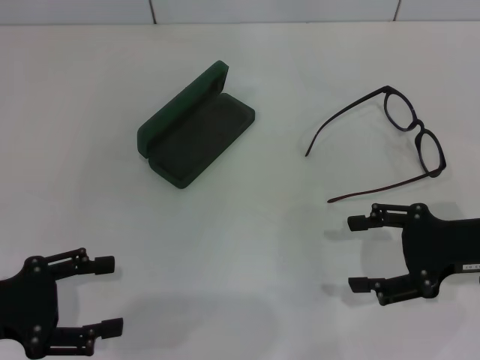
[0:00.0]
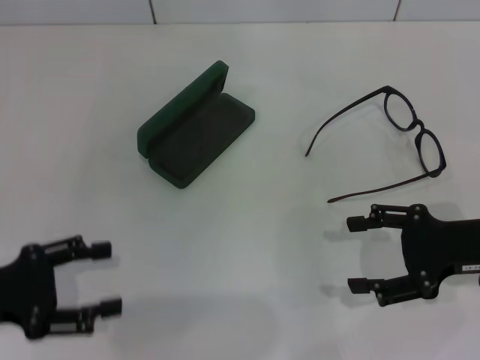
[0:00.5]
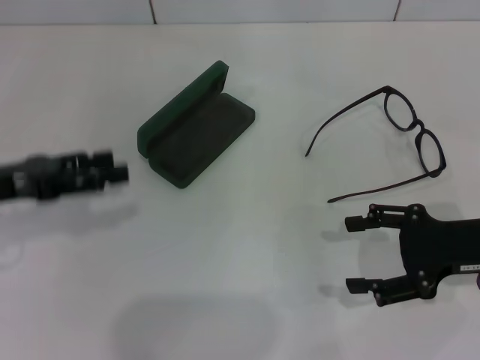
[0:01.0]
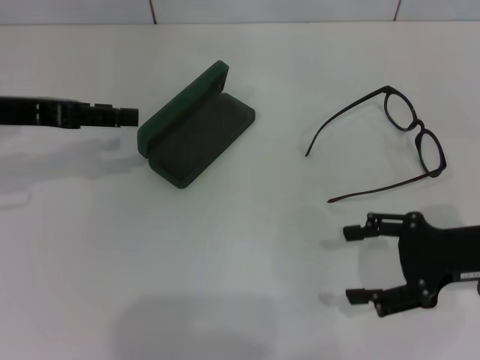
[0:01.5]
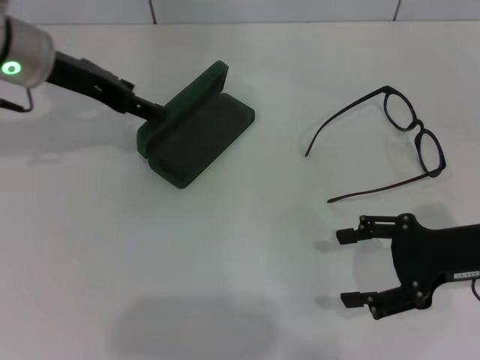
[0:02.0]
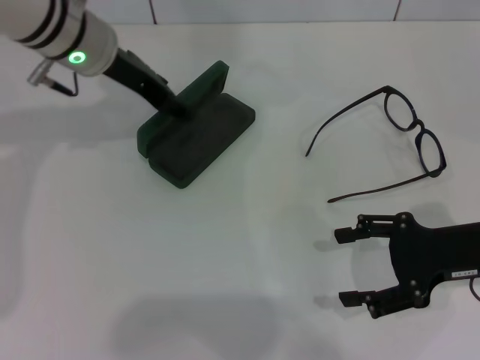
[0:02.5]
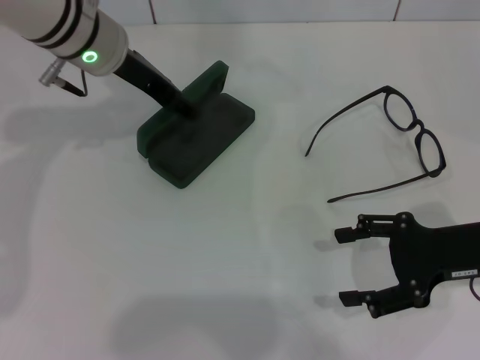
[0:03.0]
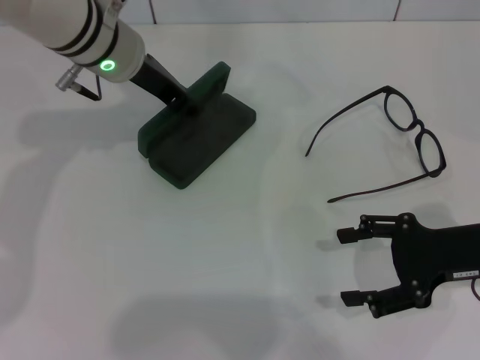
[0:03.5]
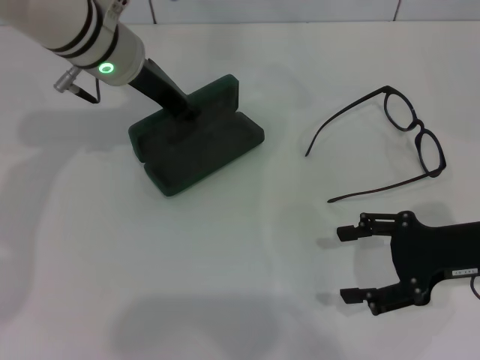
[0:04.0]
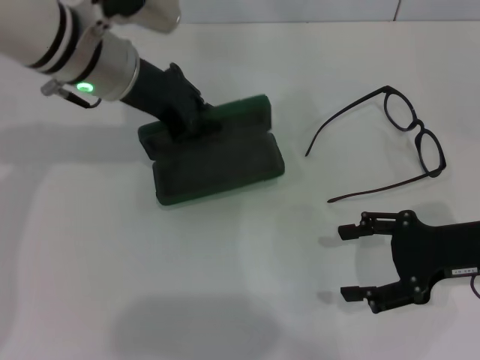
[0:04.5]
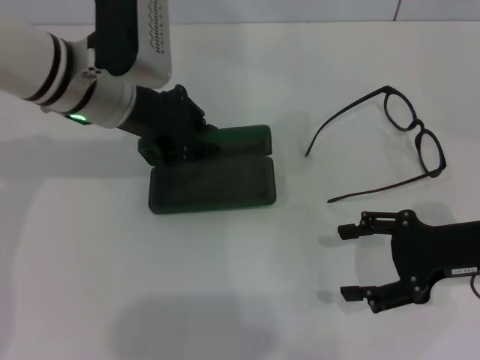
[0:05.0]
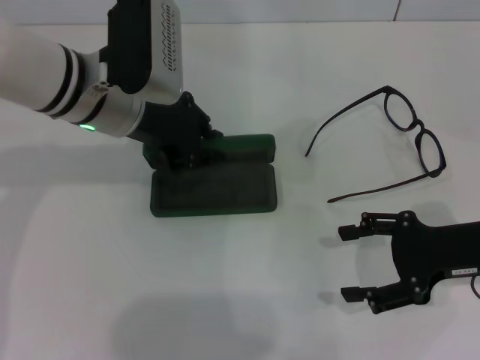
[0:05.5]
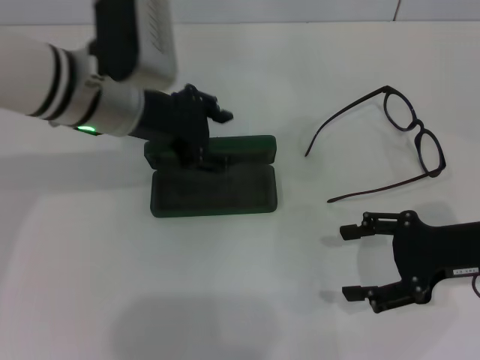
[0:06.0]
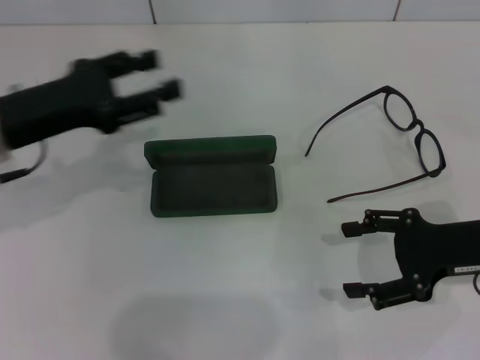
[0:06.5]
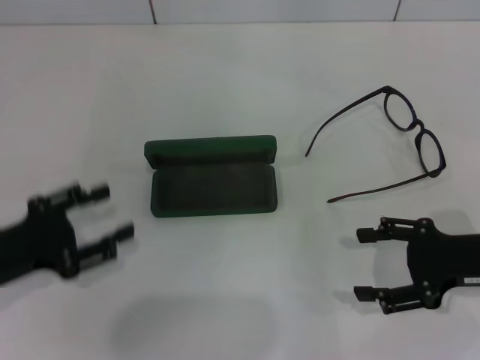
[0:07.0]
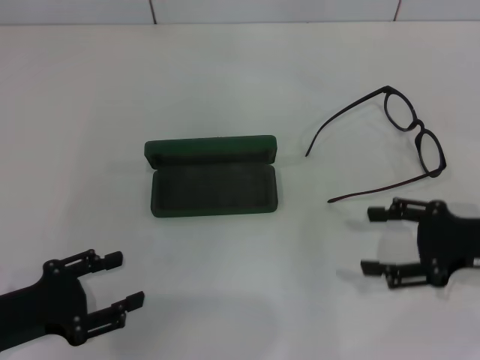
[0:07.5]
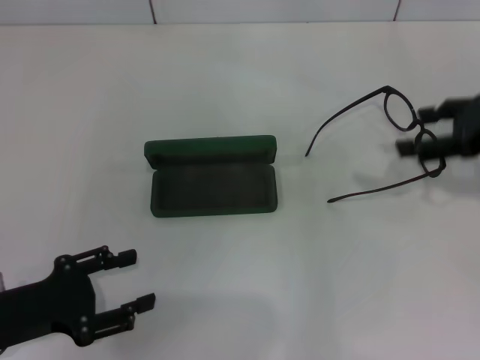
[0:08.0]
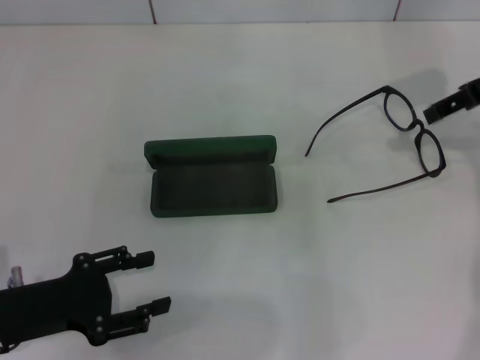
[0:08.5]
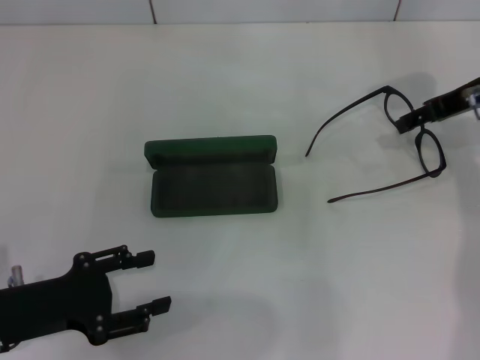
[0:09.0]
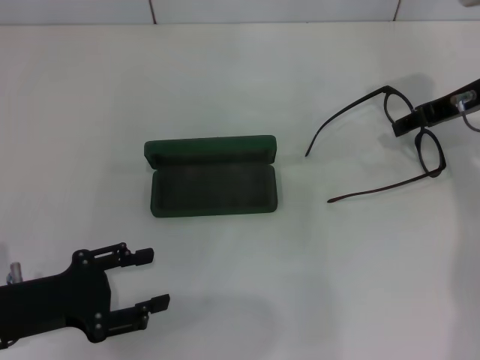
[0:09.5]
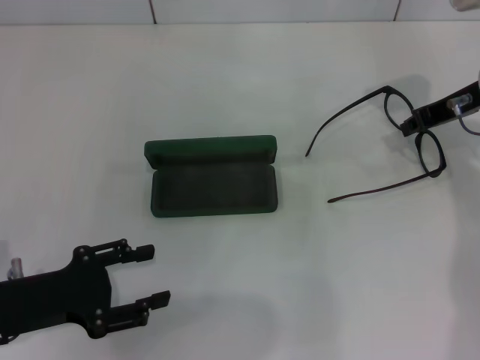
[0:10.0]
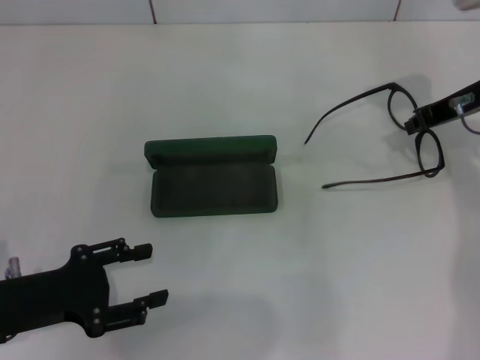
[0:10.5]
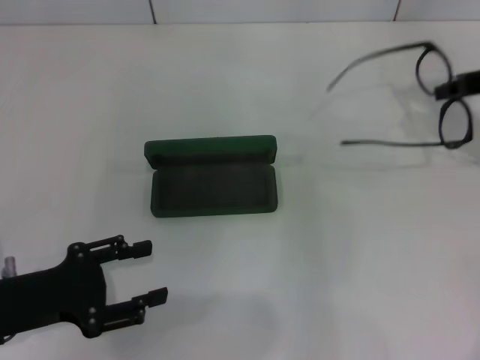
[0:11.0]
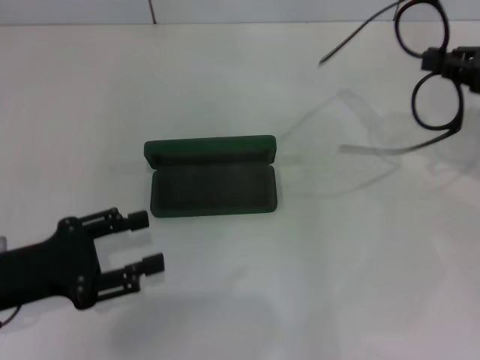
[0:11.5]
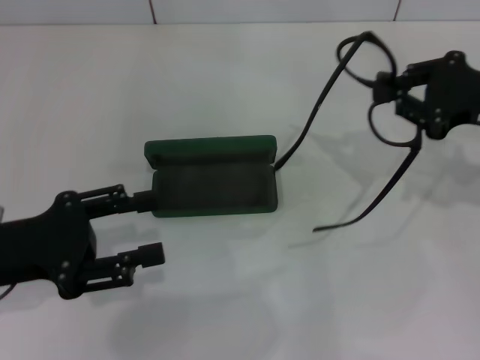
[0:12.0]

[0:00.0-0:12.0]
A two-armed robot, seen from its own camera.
Step, 0:00.0 to 0:03.0: Grab the glasses case with your left hand.
Step, 0:03.5 to 0:06.0: Place the glasses case in the center of the table with your left hand.
Step, 0:06.5 to 0:10.0: Grab the eyeglass frame with your right hand.
0:00.0 to 0:02.0: The left gripper shifts some 25 cm forward, upward and to the right.
0:02.0 to 0:04.0: The left gripper moves to the right, approximately 10 cm, and closes.
0:04.0 to 0:06.0: The left gripper moves backward, approximately 5 cm, and opens up.
0:06.0 to 0:08.0: The left gripper goes roughly 25 cm backward, to the left and downward; the right gripper moves upward and forward, roughly 10 cm.
0:08.0 to 0:10.0: The right gripper goes about 10 cm forward and to the left, and closes.
0:10.0 to 0:12.0: The right gripper moves backward, about 10 cm, and closes. Meanwhile the left gripper goes about 5 cm upward.

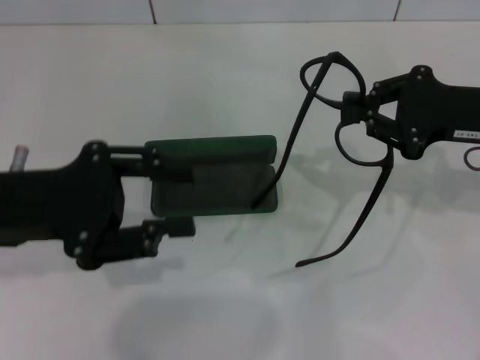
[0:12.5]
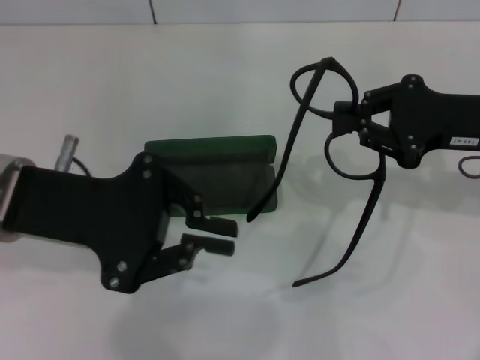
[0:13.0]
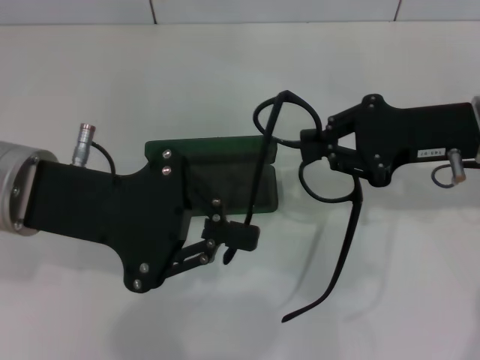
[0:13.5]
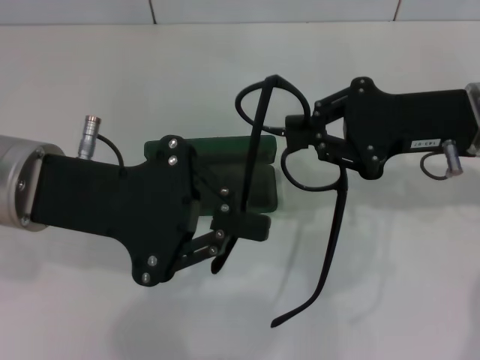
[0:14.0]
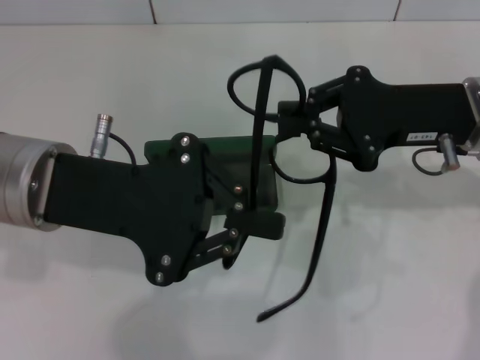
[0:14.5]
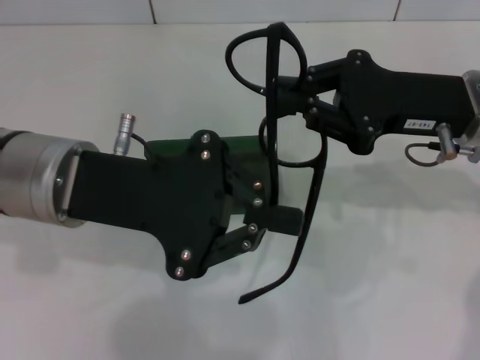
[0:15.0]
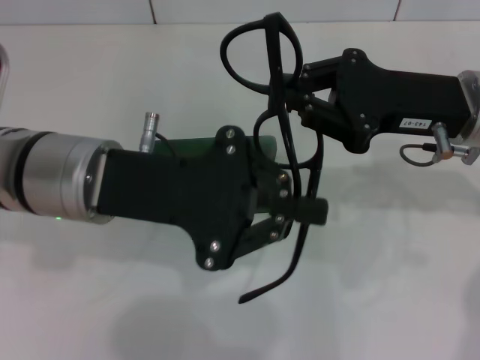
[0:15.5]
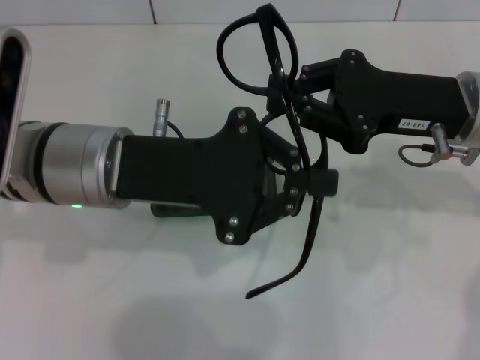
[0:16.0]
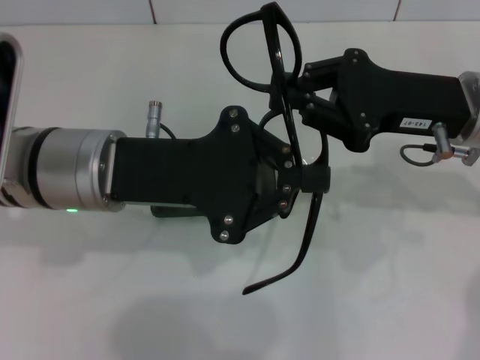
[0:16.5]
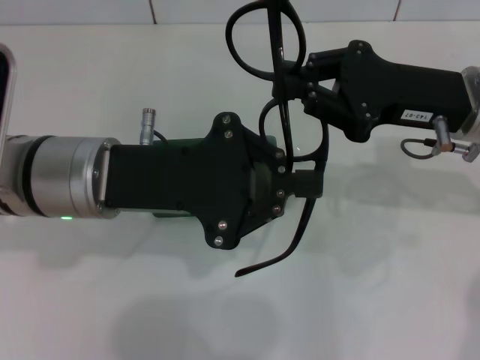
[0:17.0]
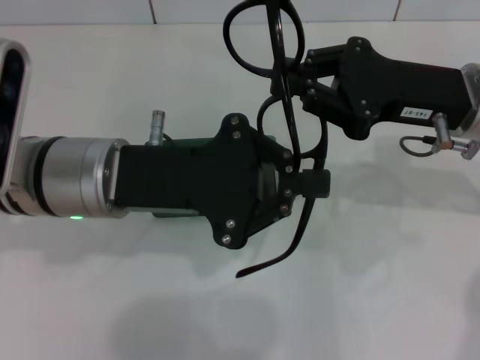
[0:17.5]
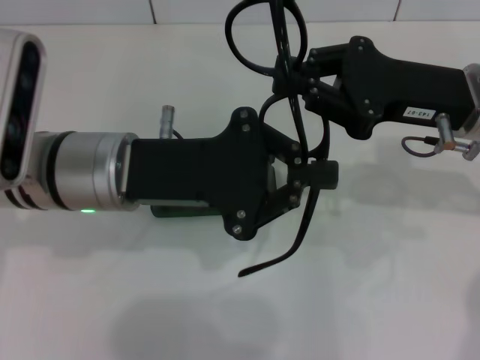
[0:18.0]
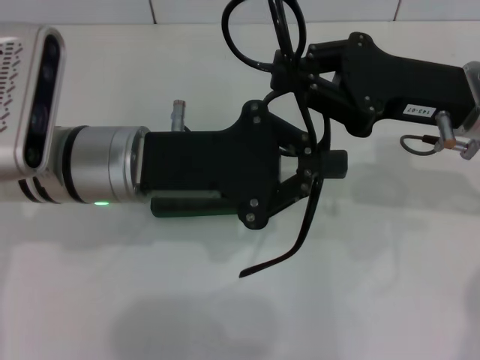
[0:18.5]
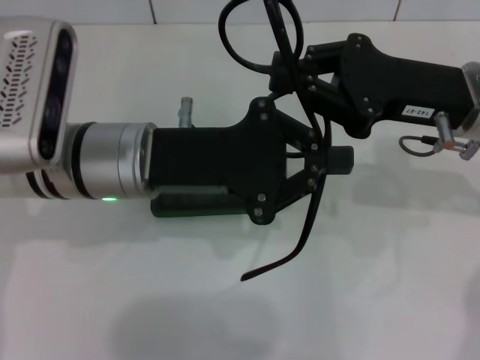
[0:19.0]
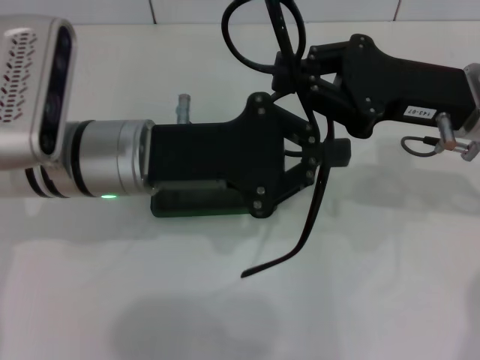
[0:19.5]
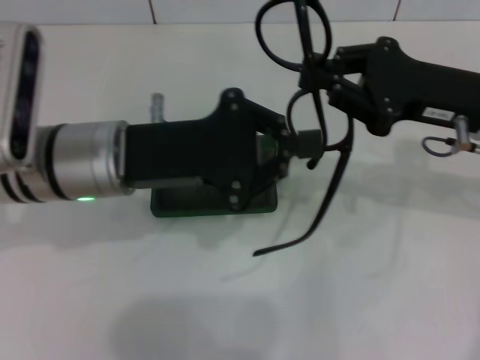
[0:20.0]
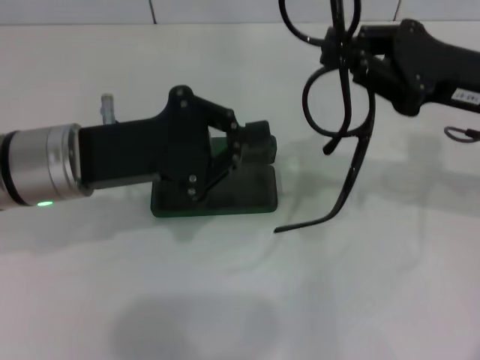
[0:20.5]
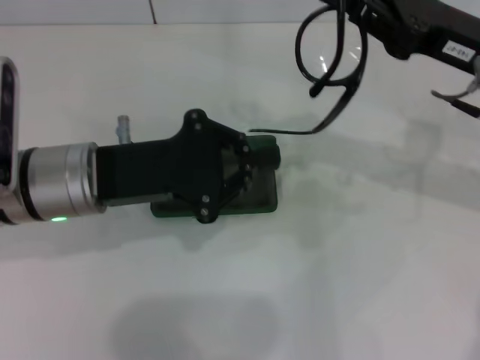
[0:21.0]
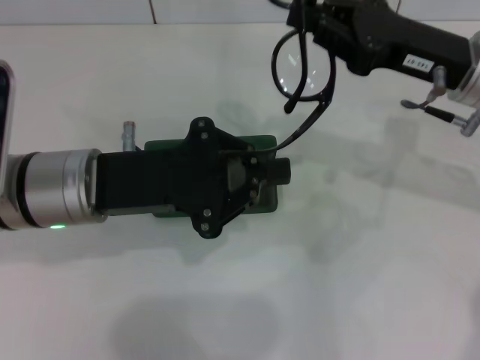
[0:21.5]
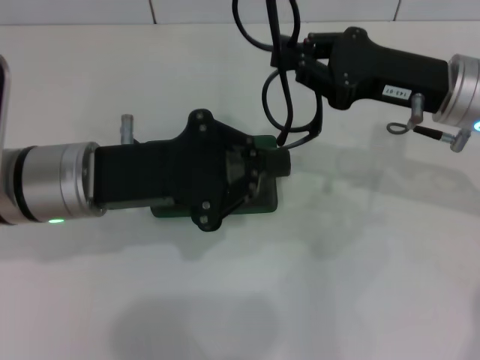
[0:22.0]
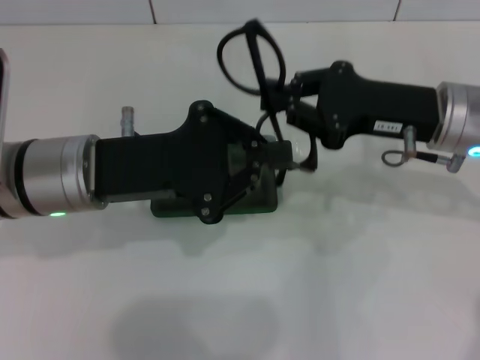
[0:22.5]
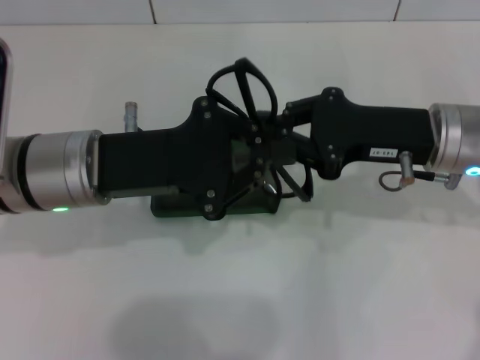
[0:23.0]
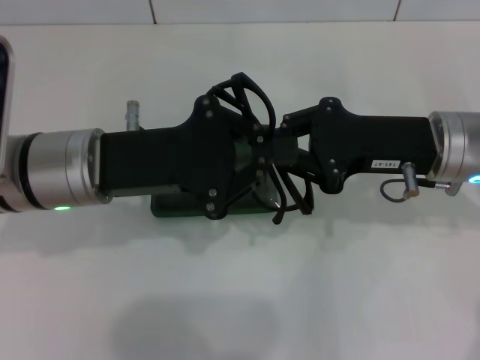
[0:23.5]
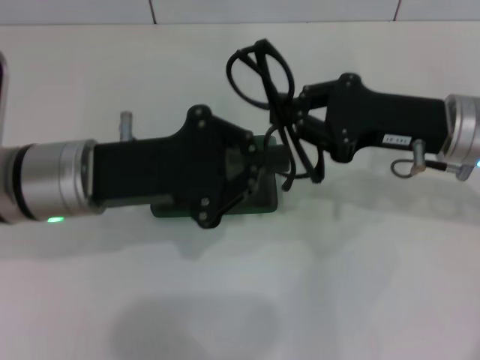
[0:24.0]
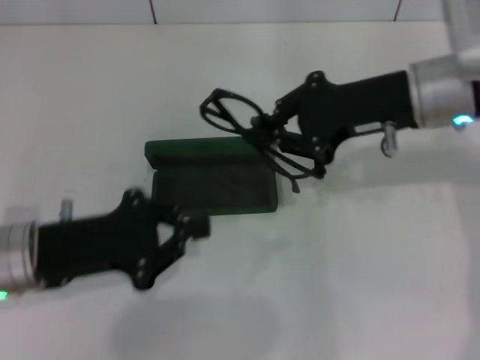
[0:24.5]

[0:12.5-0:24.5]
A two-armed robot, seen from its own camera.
Step, 0:12.5 to 0:23.5: Fold the frame with your left hand.
0:12.5 to 0:14.5: The left gripper moves to the right, some 5 cm, and closes up. Meanwhile the right gripper goes some 5 cm to the left.
0:18.5 to 0:20.5: The left gripper goes about 5 cm to the left.
0:20.5 to 0:22.5: The right gripper moves roughly 5 cm.
0:22.5 to 0:24.5: The left gripper goes about 10 cm to the left and downward.

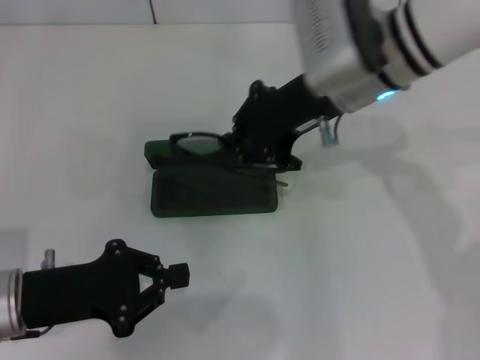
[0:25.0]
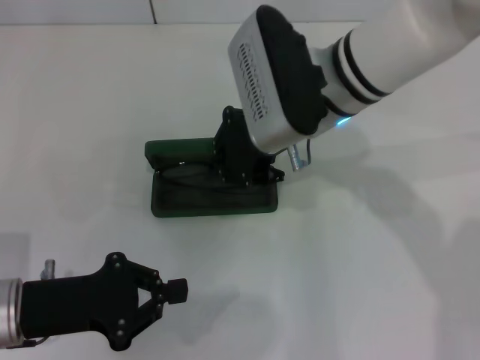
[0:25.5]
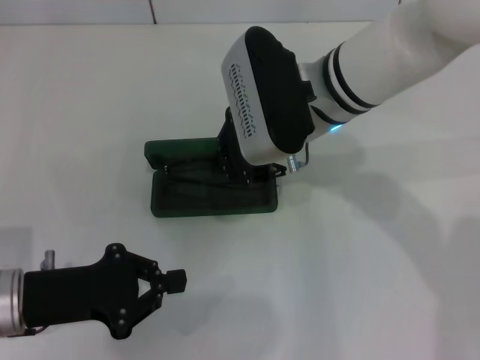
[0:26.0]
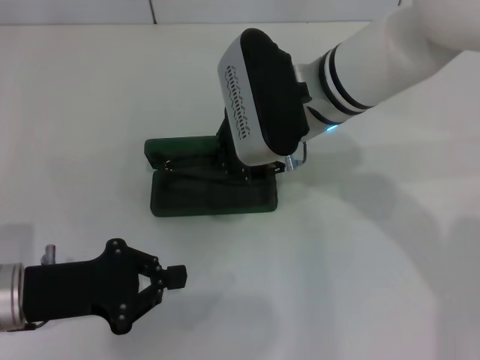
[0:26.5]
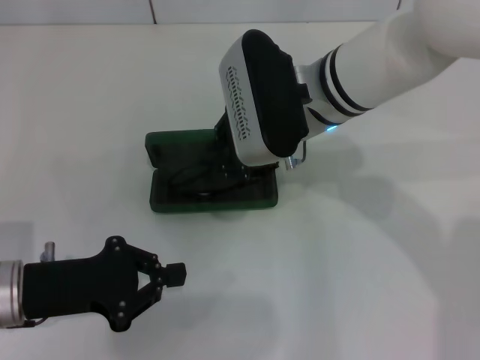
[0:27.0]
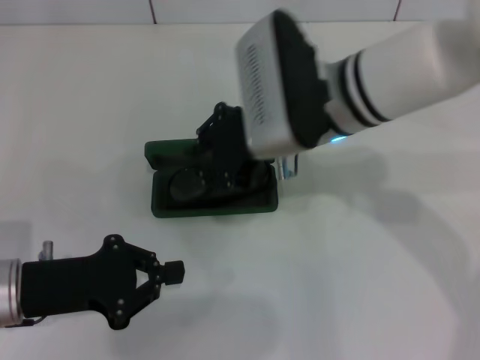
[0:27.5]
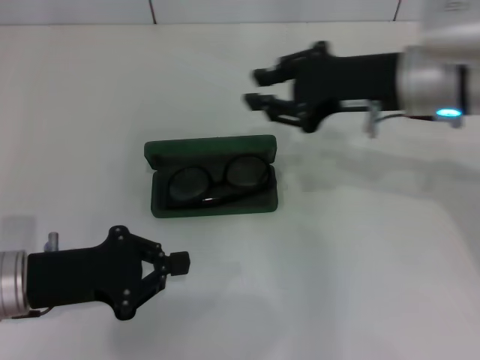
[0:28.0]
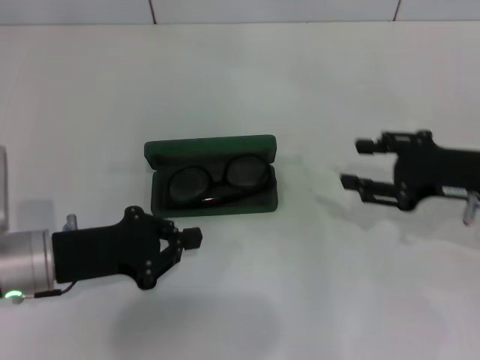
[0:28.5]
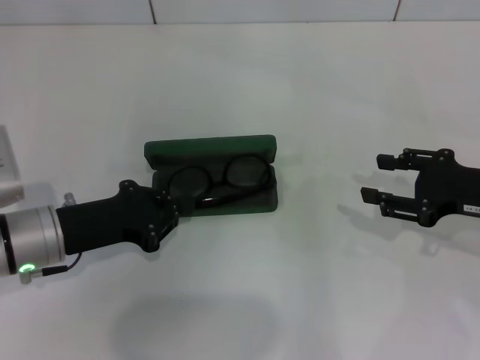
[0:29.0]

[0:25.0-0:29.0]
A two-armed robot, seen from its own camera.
Step, 0:25.0 to 0:27.0: Put the glasses into the case with your right hand.
0:25.0 to 0:27.0: The right gripper moves roughly 5 cm.
0:27.0 to 0:29.0: The right gripper goes about 25 cm to the right, and opens up; the left gripper moves roughly 5 cm.
